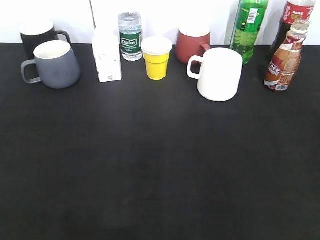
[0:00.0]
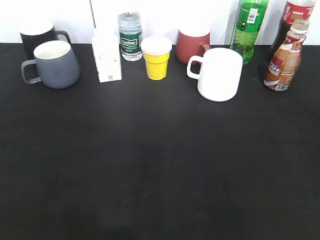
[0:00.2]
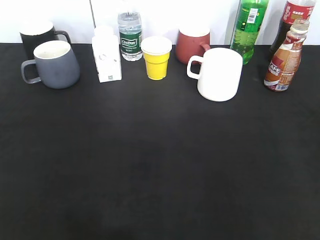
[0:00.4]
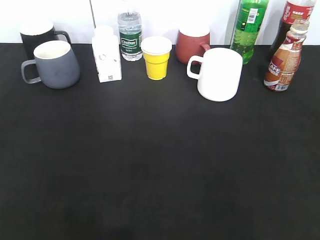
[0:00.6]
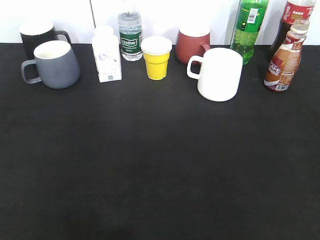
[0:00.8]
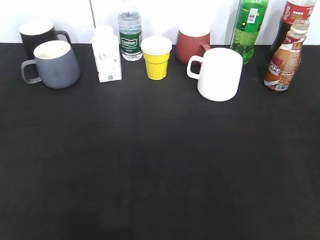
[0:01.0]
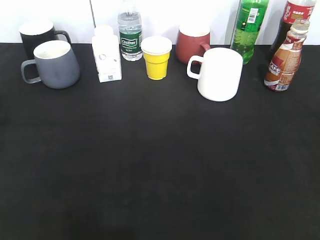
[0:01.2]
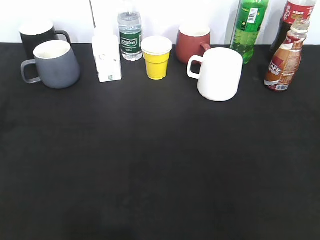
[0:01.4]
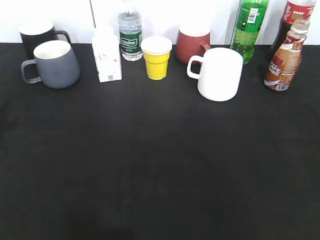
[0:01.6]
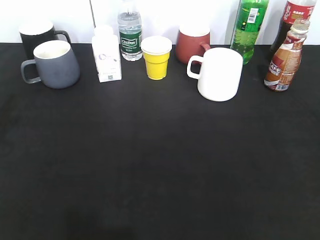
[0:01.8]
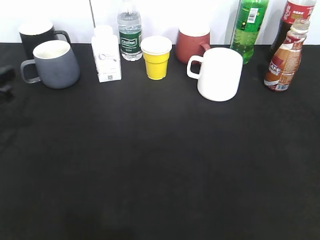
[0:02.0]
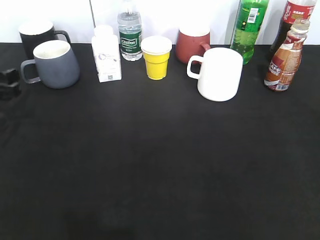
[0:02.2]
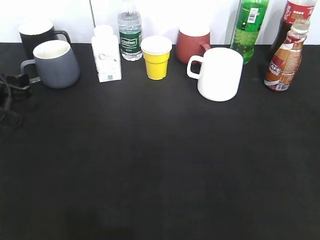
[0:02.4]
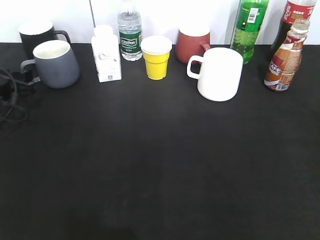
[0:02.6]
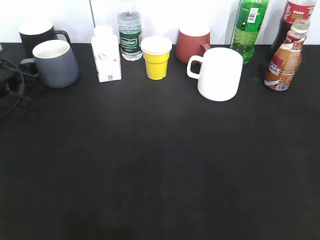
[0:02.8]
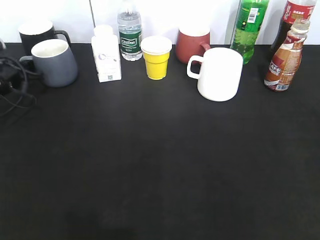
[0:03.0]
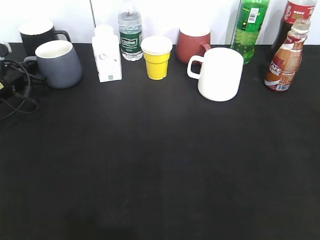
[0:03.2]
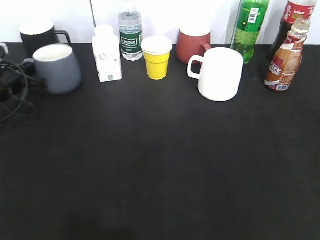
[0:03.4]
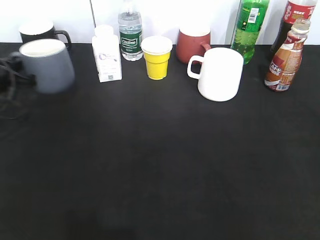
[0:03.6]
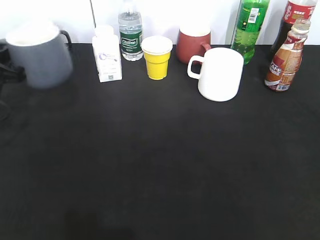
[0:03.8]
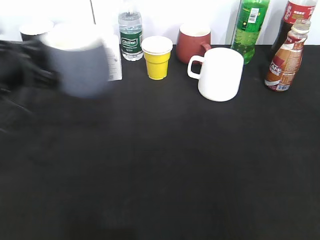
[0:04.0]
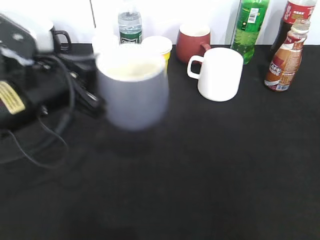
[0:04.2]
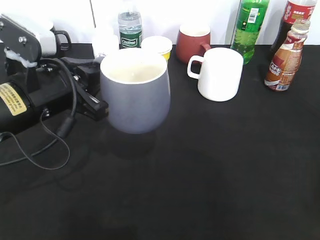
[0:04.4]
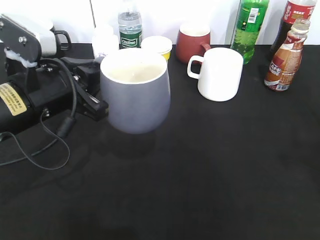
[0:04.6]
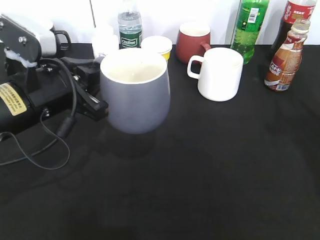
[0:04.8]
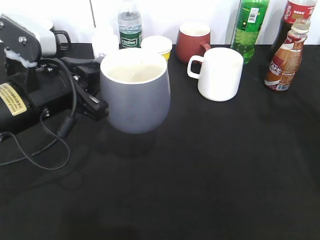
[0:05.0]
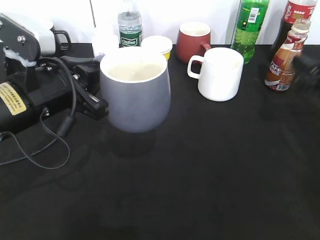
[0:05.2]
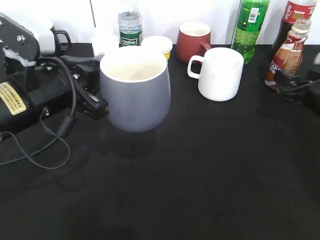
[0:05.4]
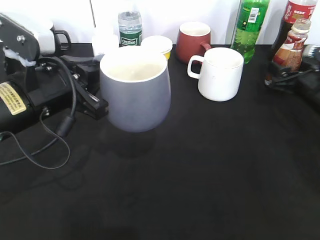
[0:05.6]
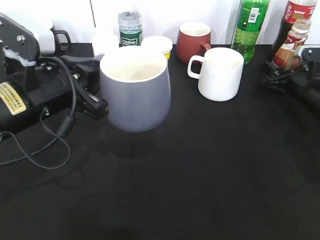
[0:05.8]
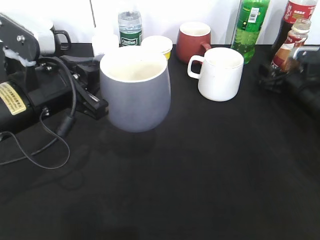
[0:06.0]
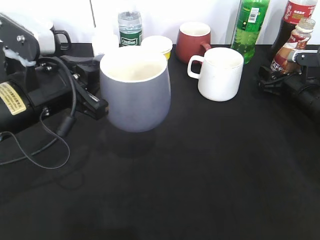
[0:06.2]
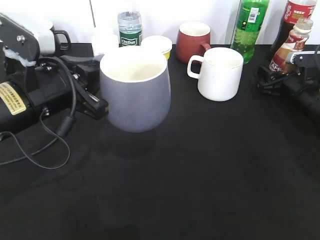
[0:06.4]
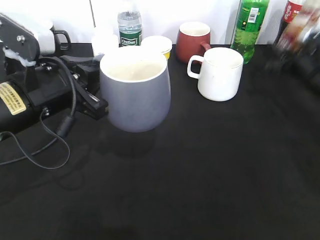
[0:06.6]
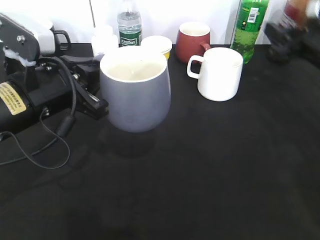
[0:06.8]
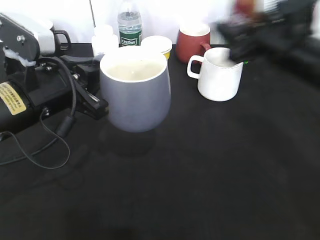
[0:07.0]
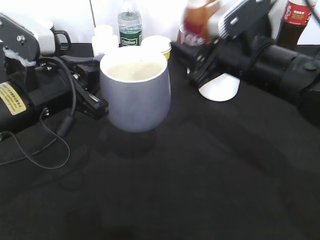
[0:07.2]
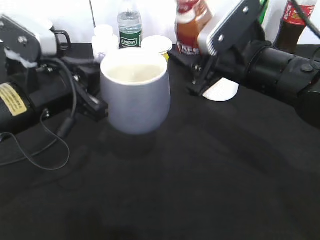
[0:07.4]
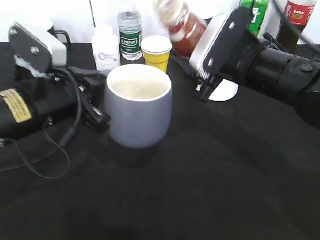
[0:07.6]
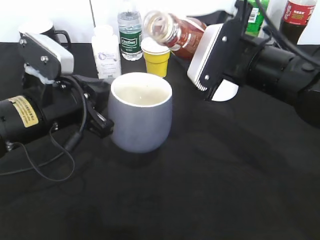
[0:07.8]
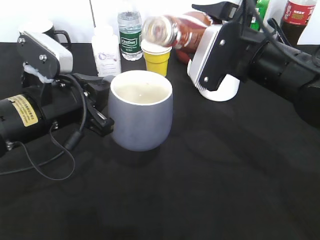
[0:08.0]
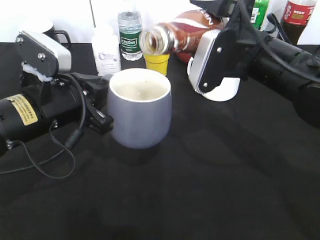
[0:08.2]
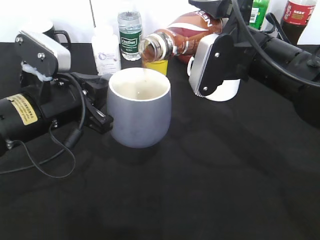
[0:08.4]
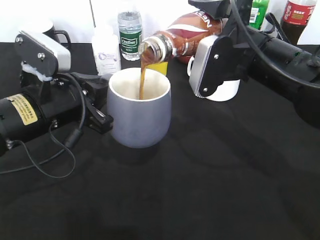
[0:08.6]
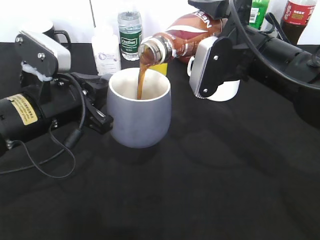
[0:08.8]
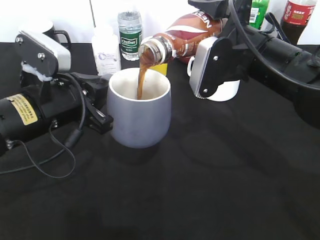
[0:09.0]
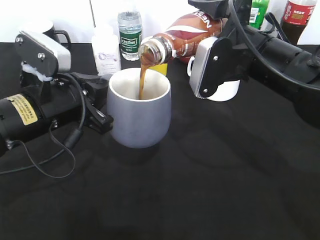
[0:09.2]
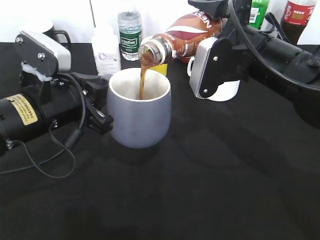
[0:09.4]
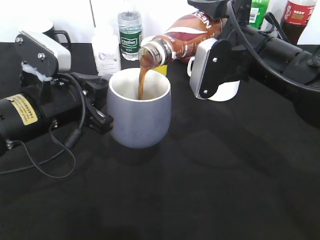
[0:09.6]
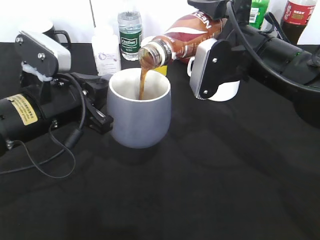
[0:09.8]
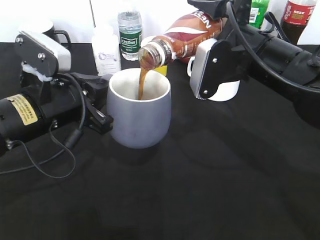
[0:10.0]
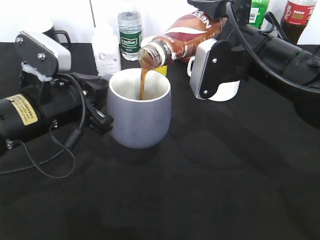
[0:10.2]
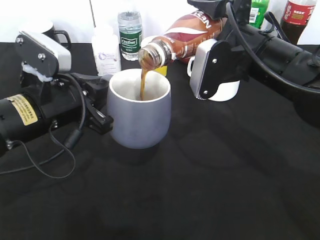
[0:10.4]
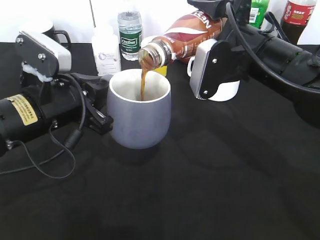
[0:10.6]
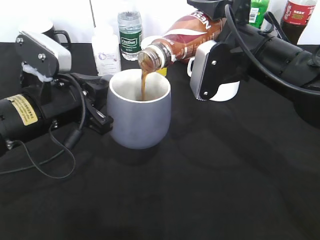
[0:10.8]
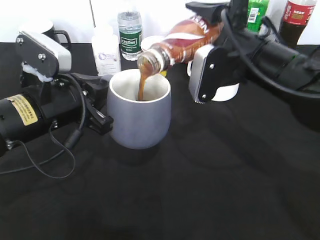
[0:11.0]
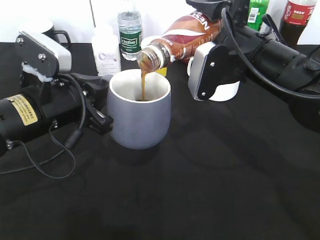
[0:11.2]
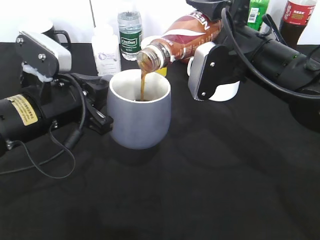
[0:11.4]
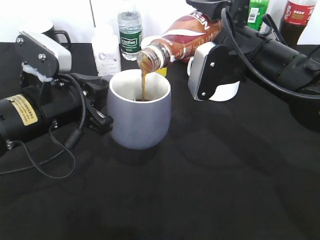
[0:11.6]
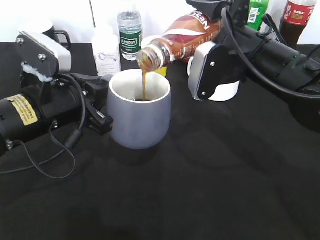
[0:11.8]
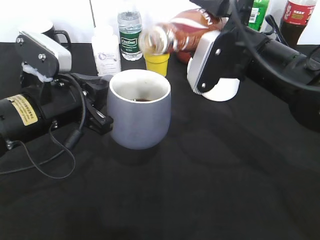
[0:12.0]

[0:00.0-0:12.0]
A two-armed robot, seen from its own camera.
Step, 0:03.4 to 0:04.8: Lift the grey cup with left gripper.
Step, 0:05.0 to 0:06.2: Grasp the bottle with coffee with right gripper.
0:01.6 to 0:03.0: The left gripper shifts some 20 cm forward and downward, and closes up.
0:03.0 to 0:04.4: The right gripper changes place by some 5 cm, and closes; the left gripper travels backward, to the right and upward by roughly 25 cm.
0:04.4 to 0:06.0: The right gripper is displaced forward and downward by about 40 cm, and opens.
0:06.0 to 0:07.6: The right gripper shifts some 25 cm to the left, upward and backward.
0:09.0 to 0:10.4: Both grippers stay about where they are.
0:10.4 to 0:12.0: The grippers stay close to where they were, moving slightly.

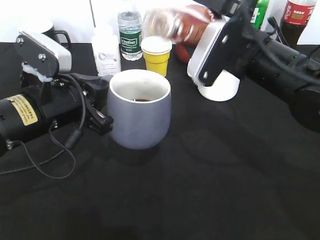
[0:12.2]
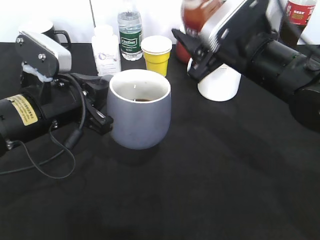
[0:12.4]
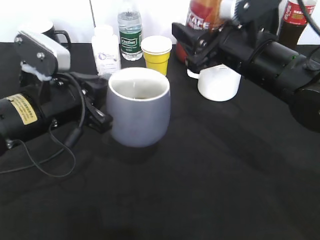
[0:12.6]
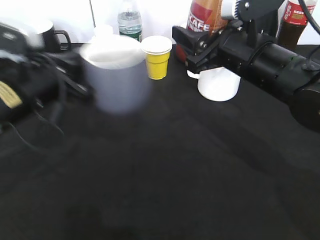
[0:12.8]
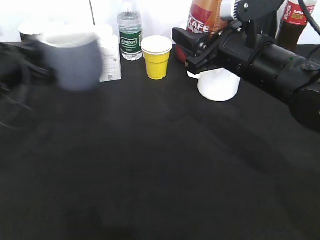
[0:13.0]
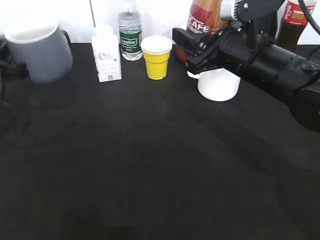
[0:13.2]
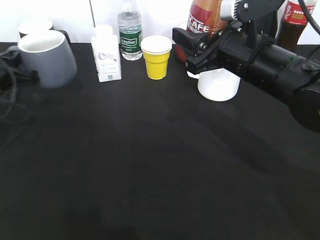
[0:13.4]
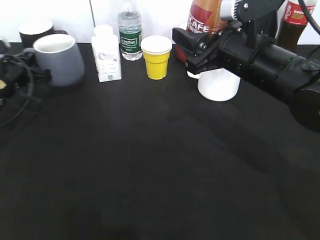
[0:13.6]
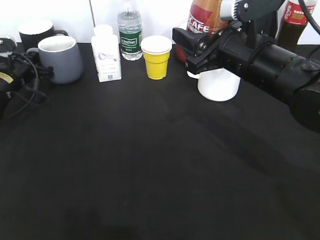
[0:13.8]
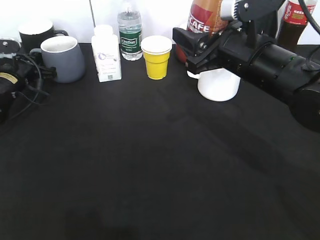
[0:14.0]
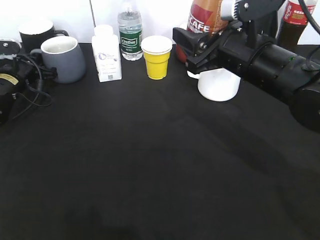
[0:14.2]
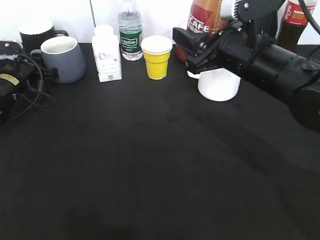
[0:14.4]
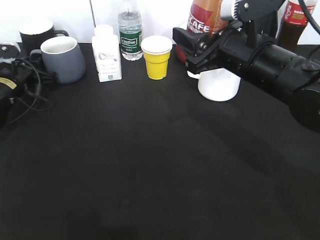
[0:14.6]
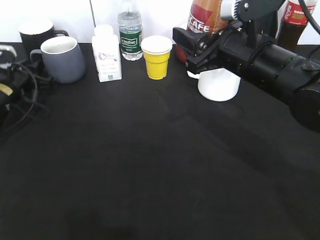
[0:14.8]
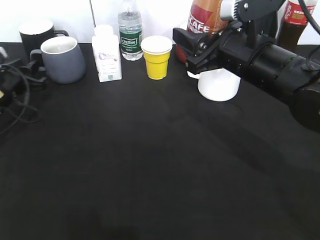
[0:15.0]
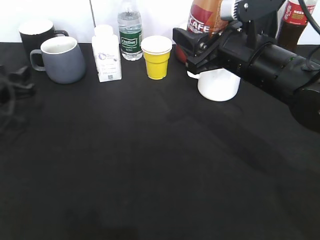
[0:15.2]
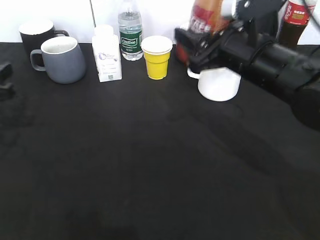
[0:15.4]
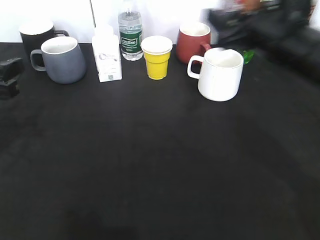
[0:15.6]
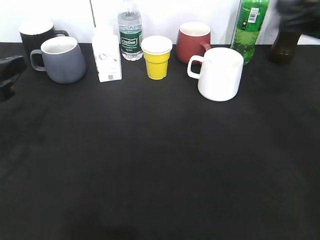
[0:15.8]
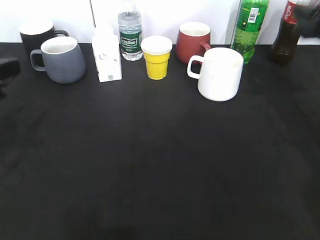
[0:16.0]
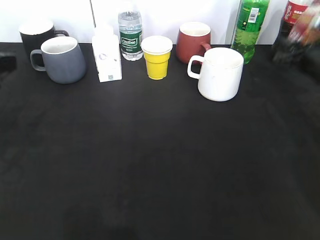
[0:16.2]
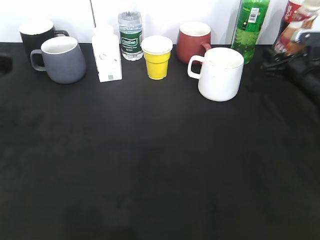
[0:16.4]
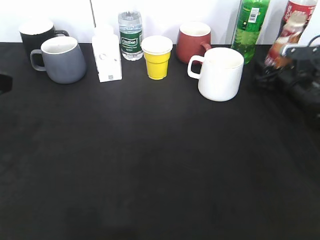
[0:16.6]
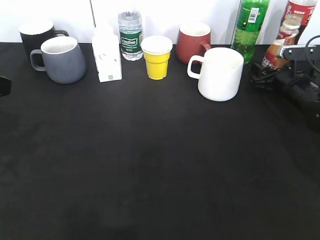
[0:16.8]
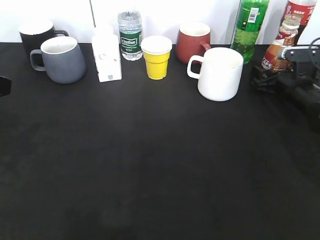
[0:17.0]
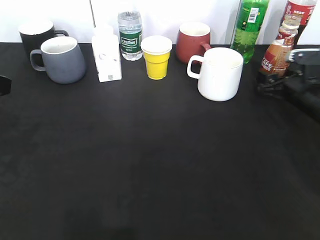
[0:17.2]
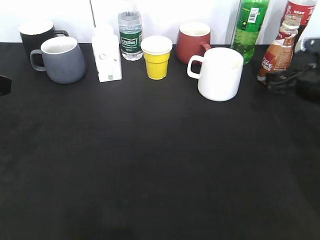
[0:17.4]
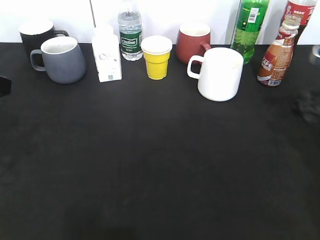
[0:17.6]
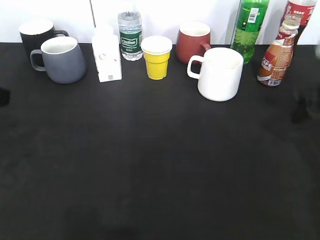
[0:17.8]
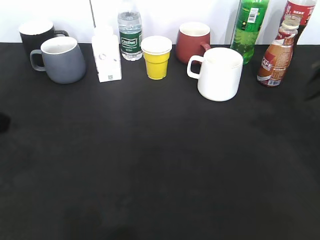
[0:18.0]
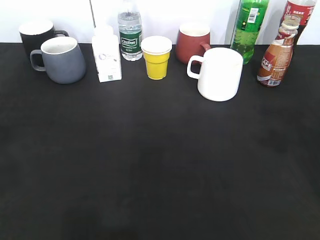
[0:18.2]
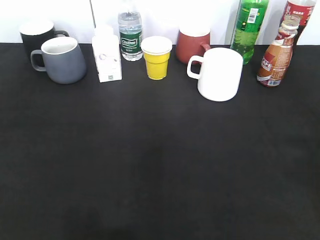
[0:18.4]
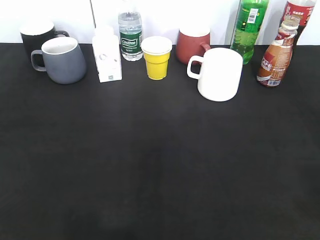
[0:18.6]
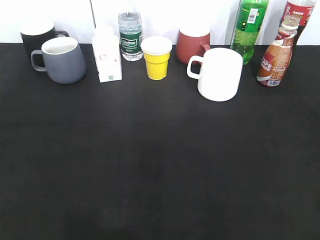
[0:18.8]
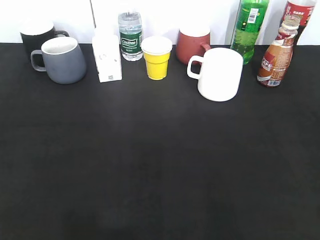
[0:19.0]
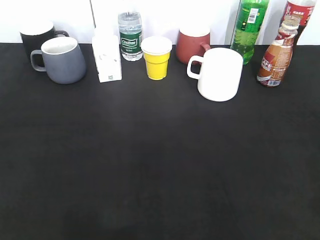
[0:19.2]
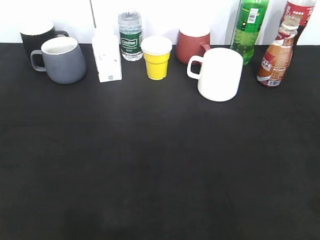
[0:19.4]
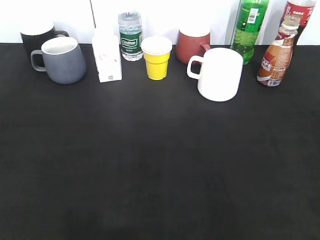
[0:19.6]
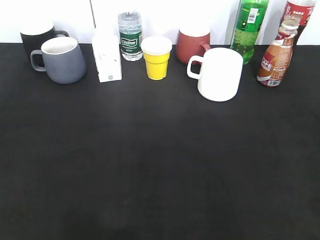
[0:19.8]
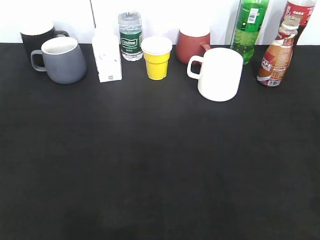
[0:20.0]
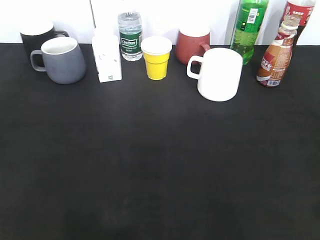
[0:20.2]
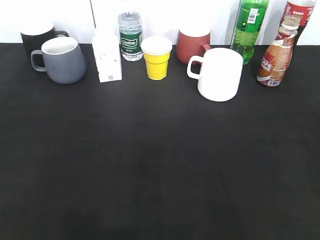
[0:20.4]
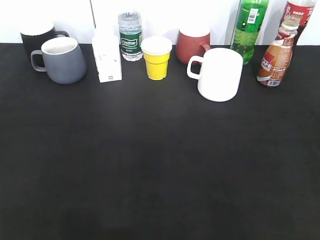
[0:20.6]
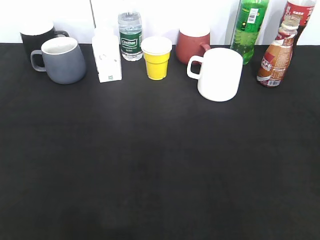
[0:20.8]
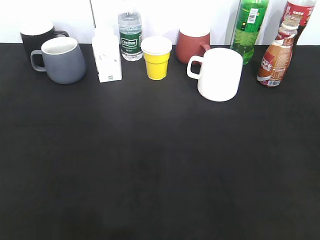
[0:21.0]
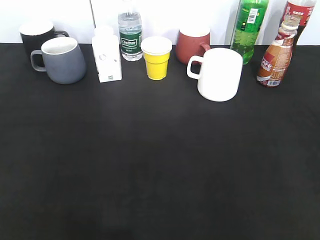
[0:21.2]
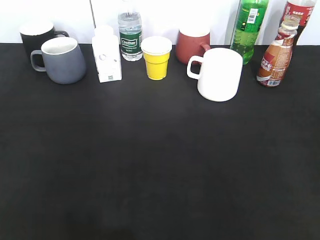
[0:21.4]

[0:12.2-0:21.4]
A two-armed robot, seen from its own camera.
Step, 0:15.4 to 0:17.4: Place the coffee bottle on the table with right gripper.
0:12.2 to 0:13.8: The left gripper travels forward, to the left and downward by about 25 cm.
0:13.8 to 0:15.2: The left gripper goes some 10 cm backward, and opens up.
0:15.2 to 0:16.8: The left gripper heads upward and backward, covering about 20 cm. The right gripper is displaced to the right, downward and forward by about 25 cm.
0:16.8 to 0:18.4: The left gripper travels backward by roughly 10 cm. The right gripper moves backward and upward, about 40 cm, and closes.

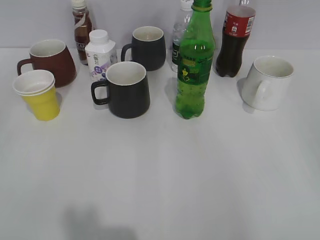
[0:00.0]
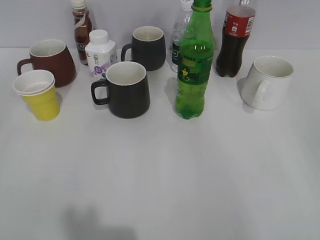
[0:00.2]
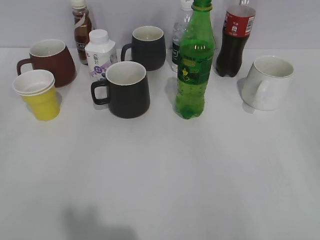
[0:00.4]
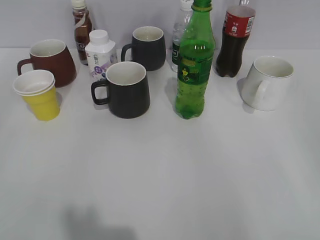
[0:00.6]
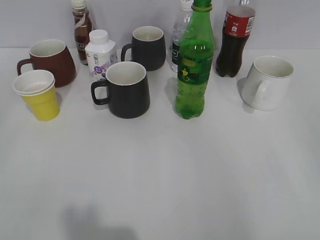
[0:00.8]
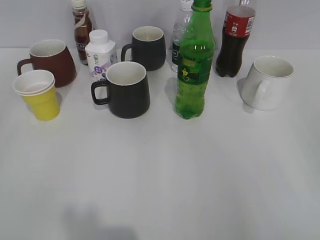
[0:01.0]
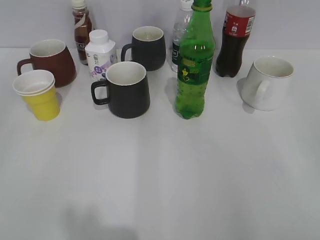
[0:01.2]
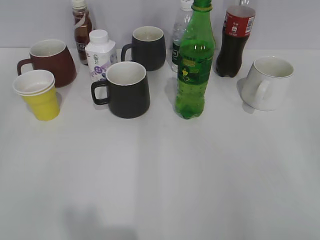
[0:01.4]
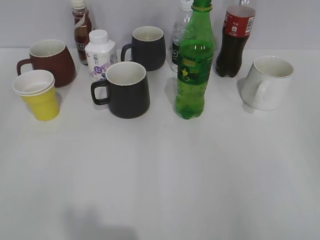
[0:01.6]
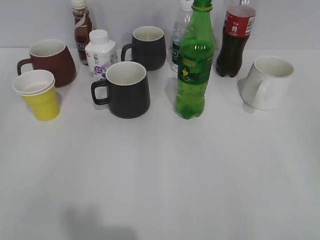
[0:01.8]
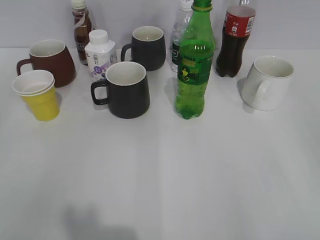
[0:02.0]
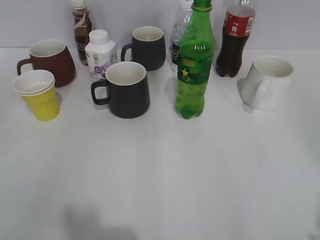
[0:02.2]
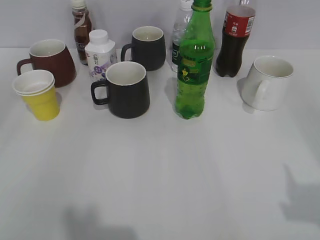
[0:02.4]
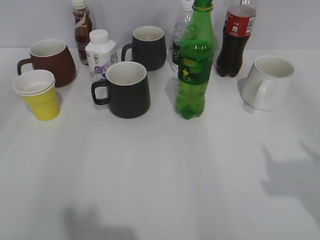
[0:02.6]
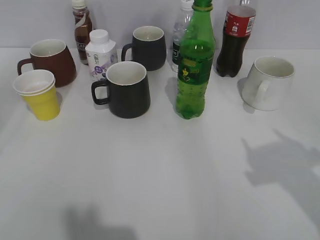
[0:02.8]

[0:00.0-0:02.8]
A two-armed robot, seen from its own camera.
0:01.4 to 0:02.8: The grippers both shift forward by roughly 15 cm. The left gripper opens.
